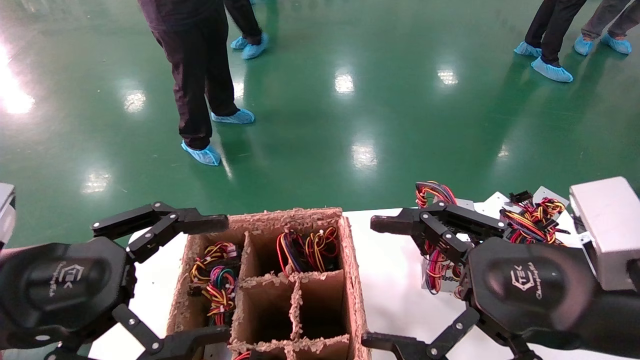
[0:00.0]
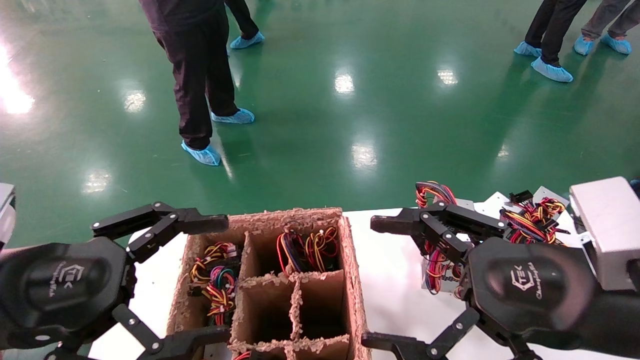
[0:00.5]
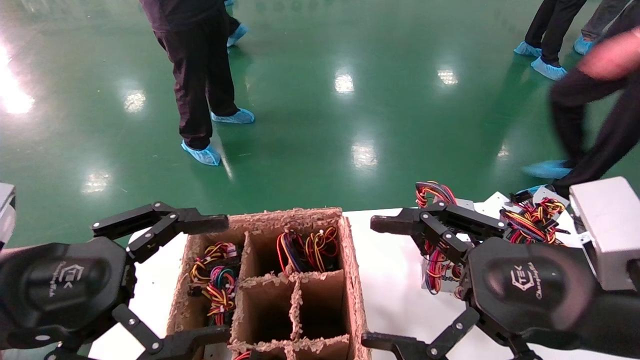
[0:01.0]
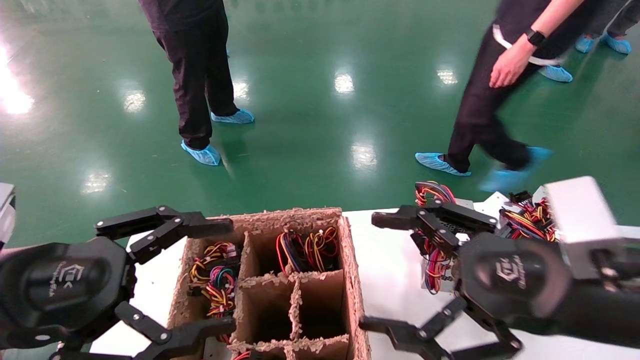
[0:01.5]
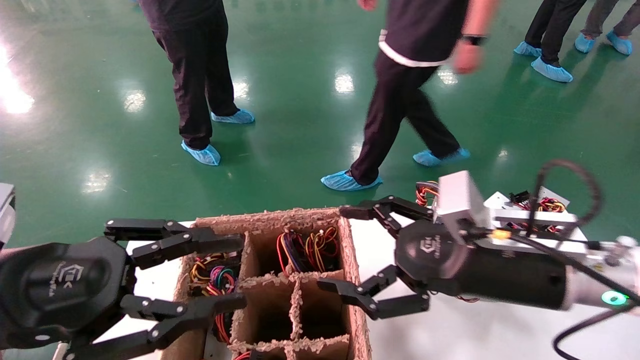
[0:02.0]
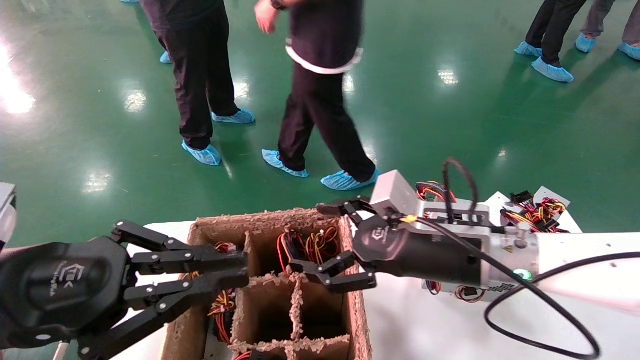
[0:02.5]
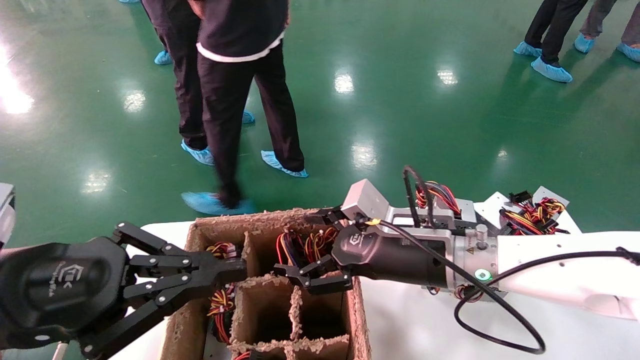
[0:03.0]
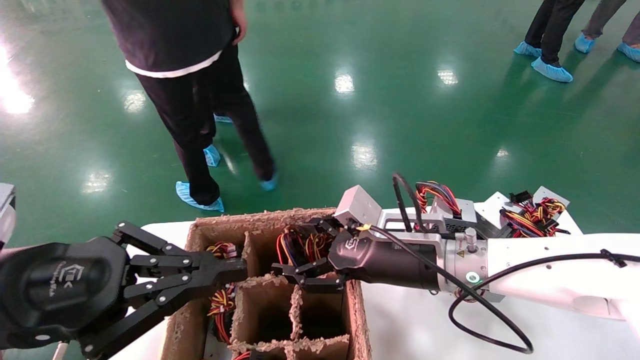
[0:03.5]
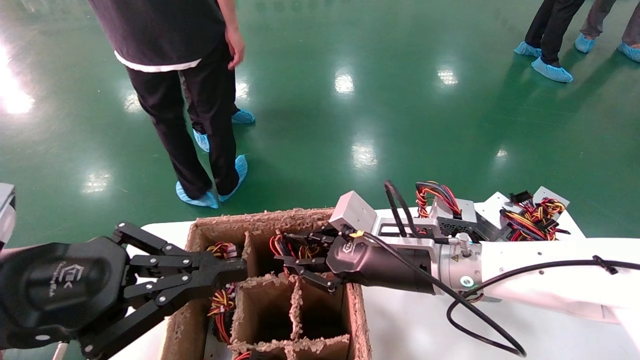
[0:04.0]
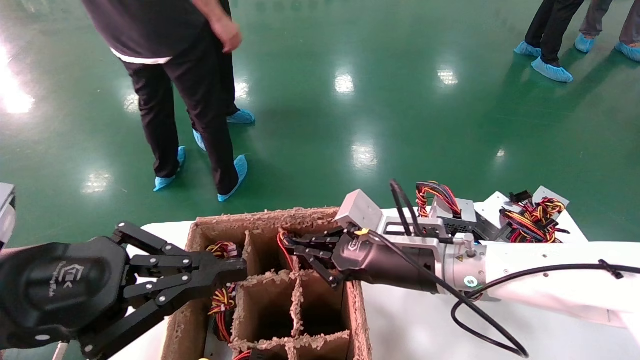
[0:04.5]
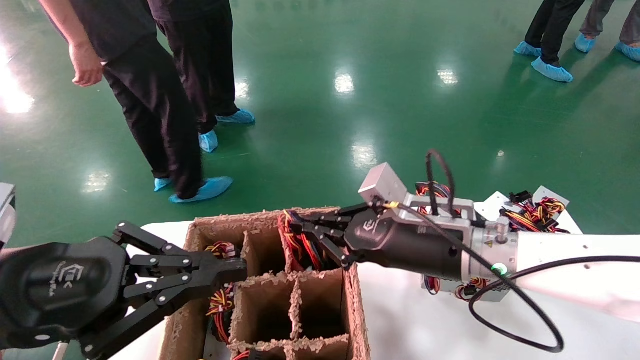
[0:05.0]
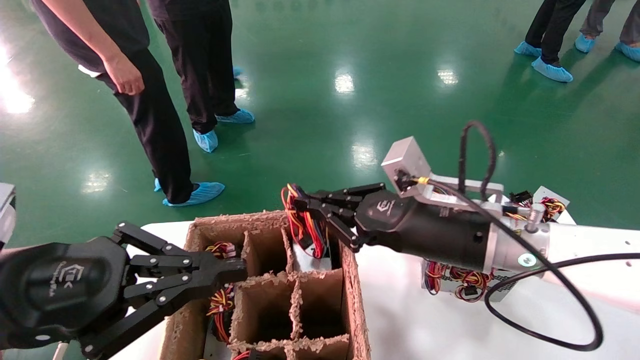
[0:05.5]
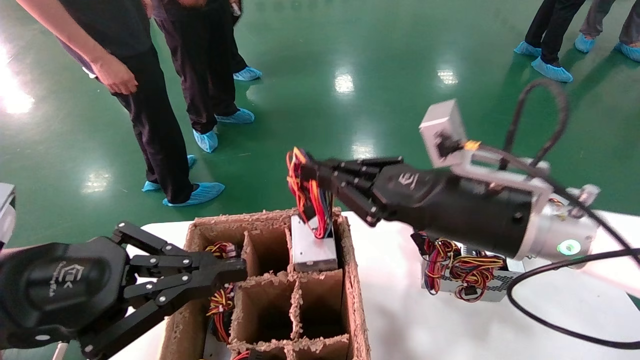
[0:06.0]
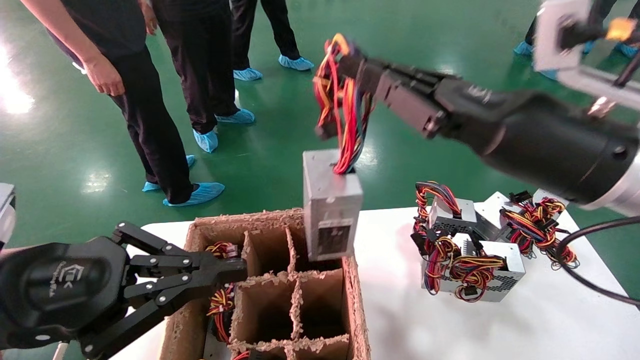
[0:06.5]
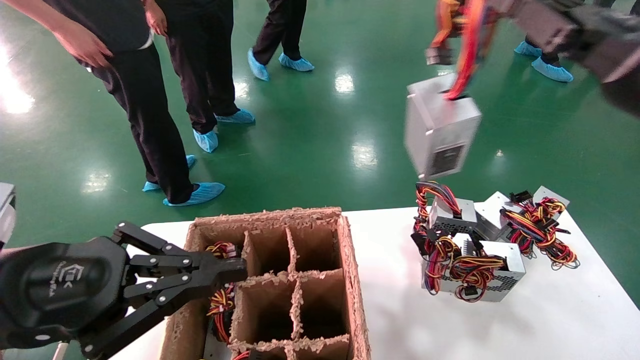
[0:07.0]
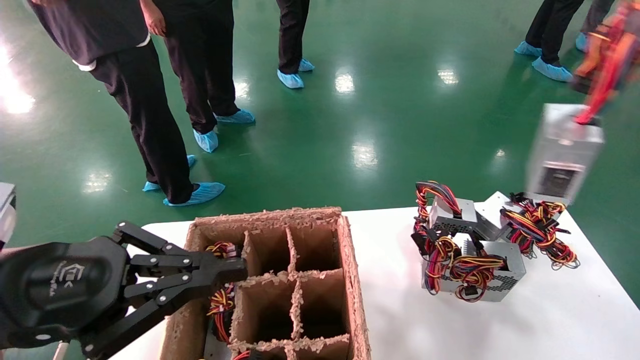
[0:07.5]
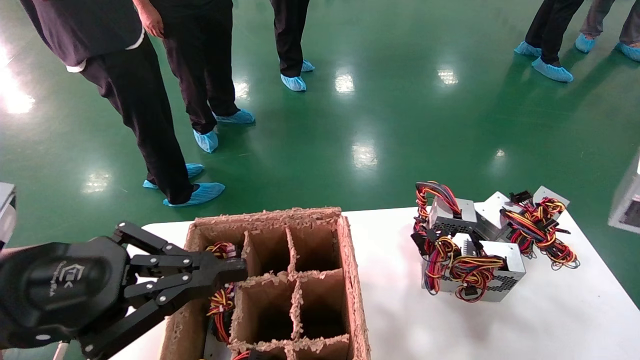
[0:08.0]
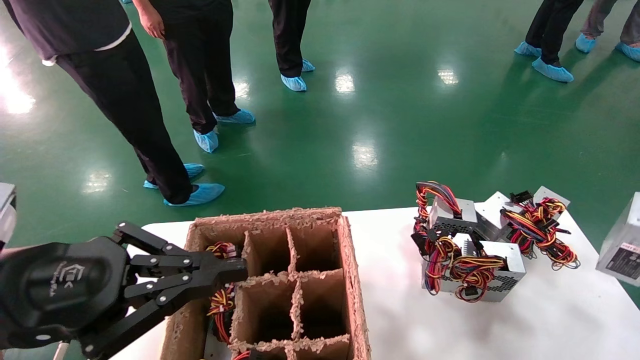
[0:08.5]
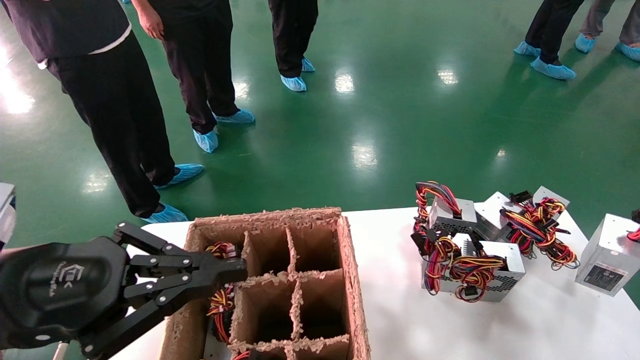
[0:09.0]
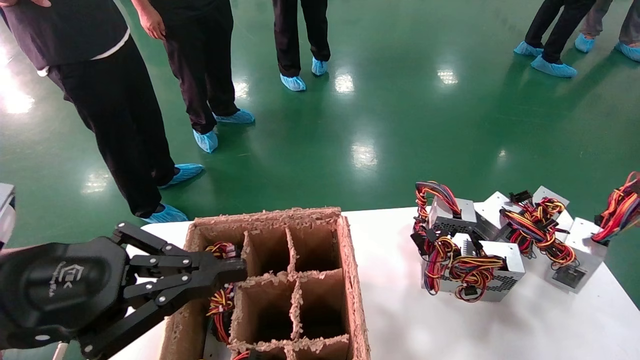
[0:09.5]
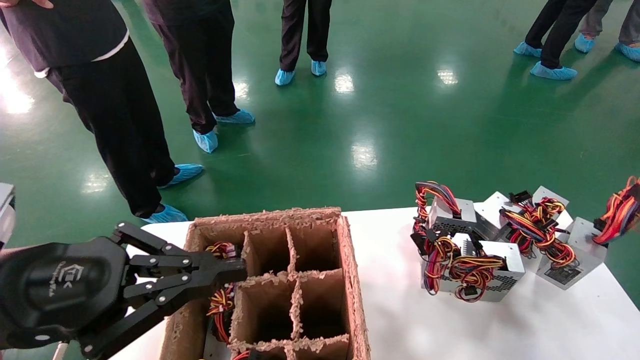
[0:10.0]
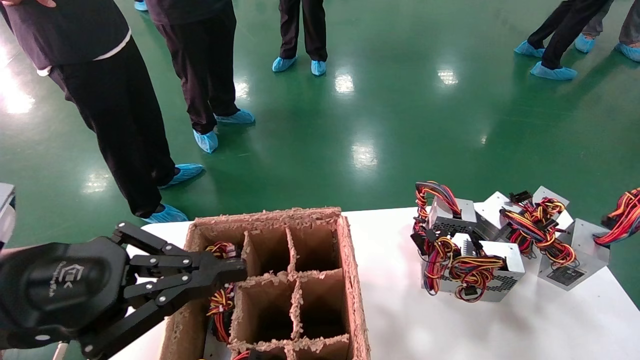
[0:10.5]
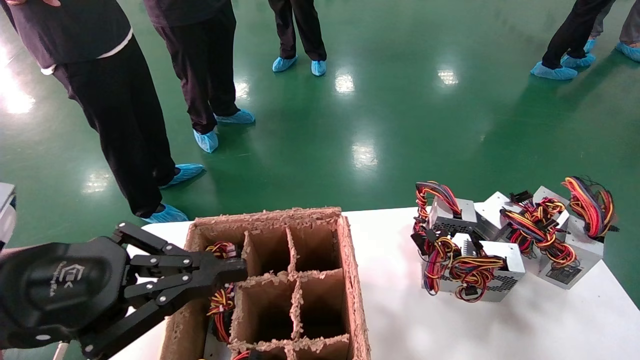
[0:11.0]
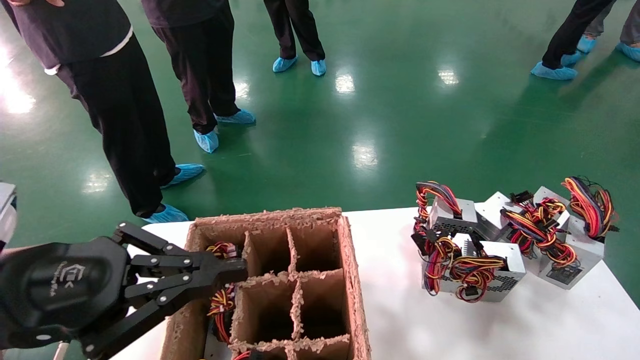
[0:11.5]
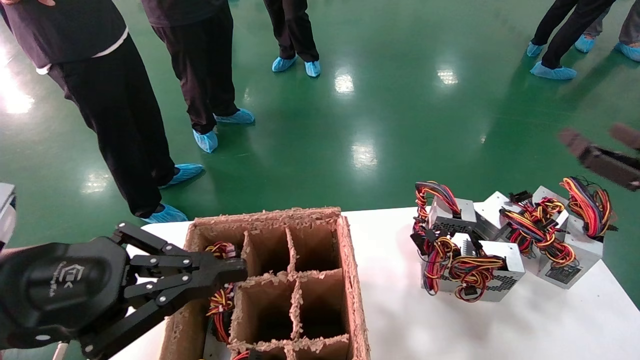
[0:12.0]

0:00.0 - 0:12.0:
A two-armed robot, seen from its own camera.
Step, 0:02.0 - 0:04.0: Grab the main unit power supply from the containment box.
Step, 0:04.5 - 0:10.5: Place the main unit power supply in the designated area.
0:00.0 - 0:02.0: The right gripper is displaced forward by about 10 cm. Meanwhile the left gripper closes.
0:02.0 - 0:04.0: The left gripper closes its fingers; the right gripper moves forward and to the left, roughly 10 cm, and closes up.
0:04.0 - 0:06.0: The right gripper shifts approximately 15 cm upward, backward and to the right, and closes its fingers.
0:06.0 - 0:08.0: The right gripper shifts approximately 35 cm to the right.
0:08.0 - 0:10.0: The right gripper goes approximately 15 cm downward and forward.
0:10.0 - 0:12.0: The right gripper goes roughly 15 cm to the left and upward, and opens up.

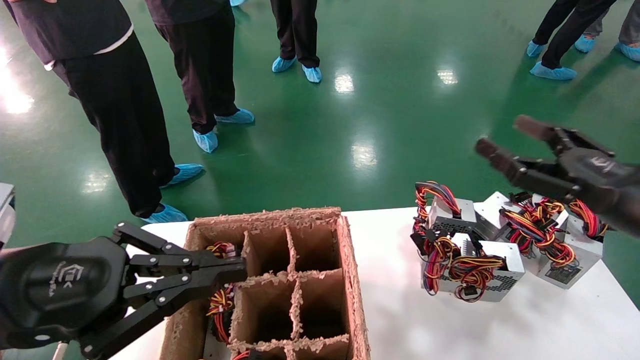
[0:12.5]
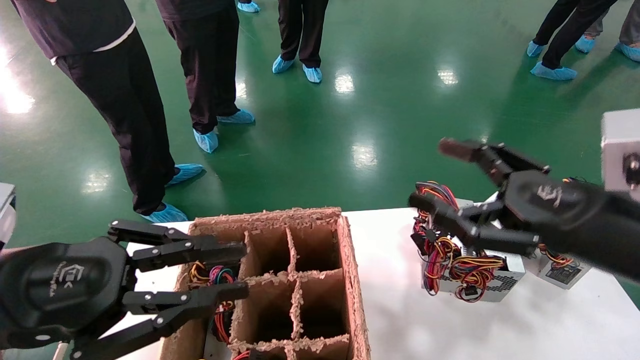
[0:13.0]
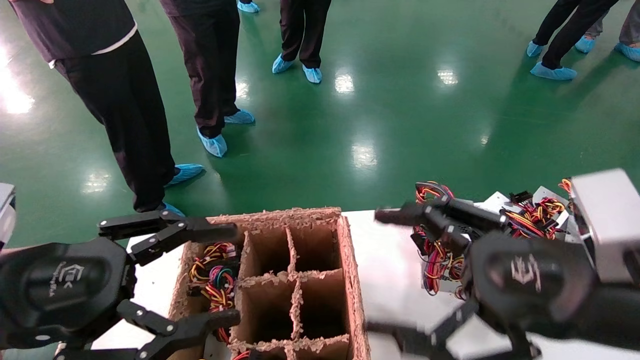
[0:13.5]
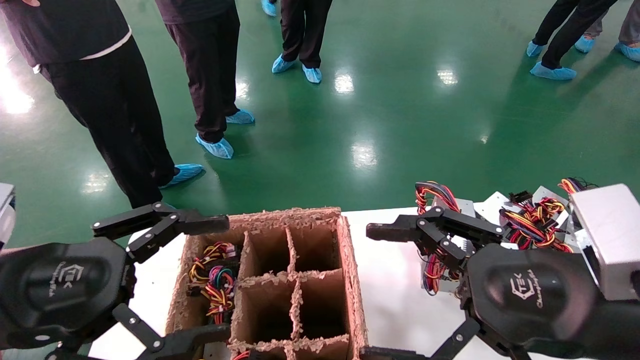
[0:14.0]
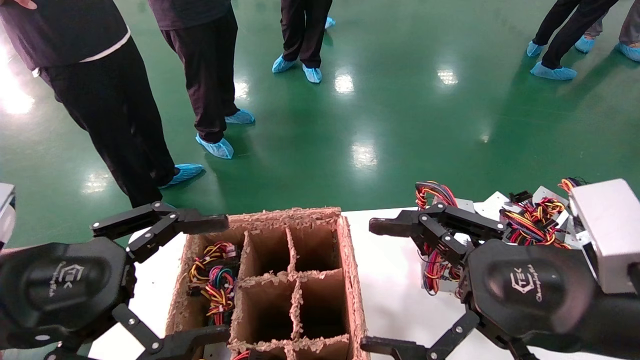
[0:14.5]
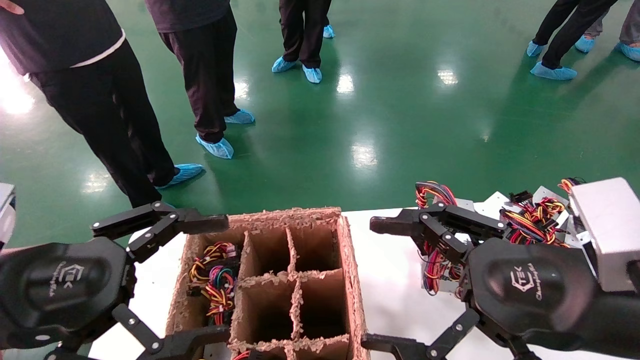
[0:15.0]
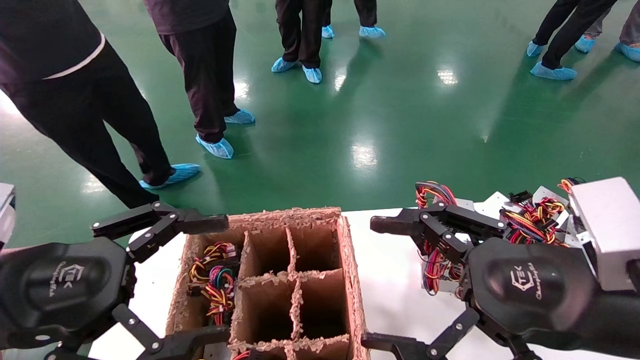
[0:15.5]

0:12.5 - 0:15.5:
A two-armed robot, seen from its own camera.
0:12.5 - 0:14.0: The left gripper opens; the right gripper heads to the left and backward, covering approximately 15 cm.
0:14.0 - 0:15.5: Both grippers stay put.

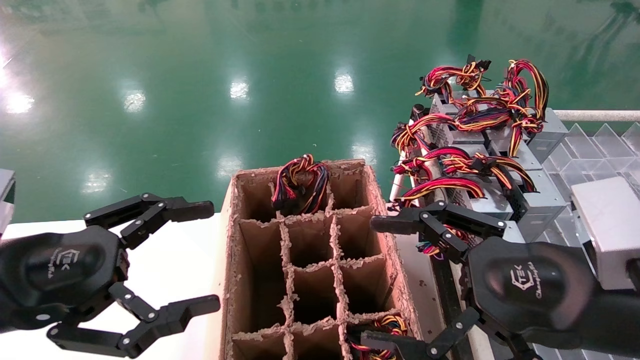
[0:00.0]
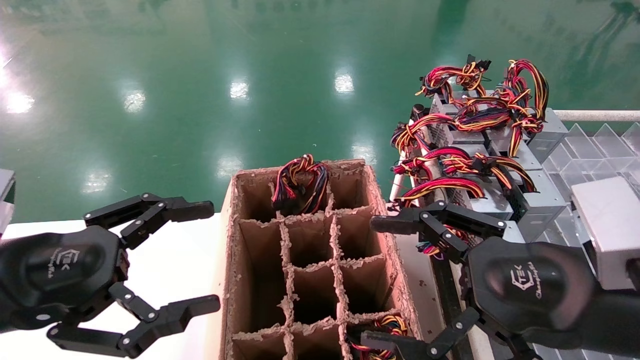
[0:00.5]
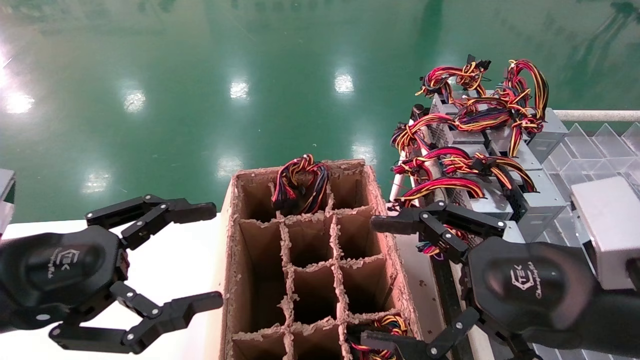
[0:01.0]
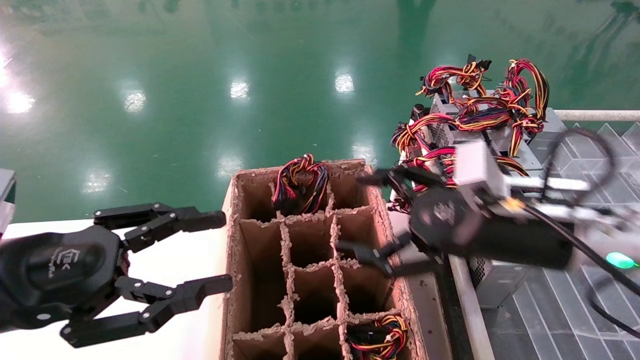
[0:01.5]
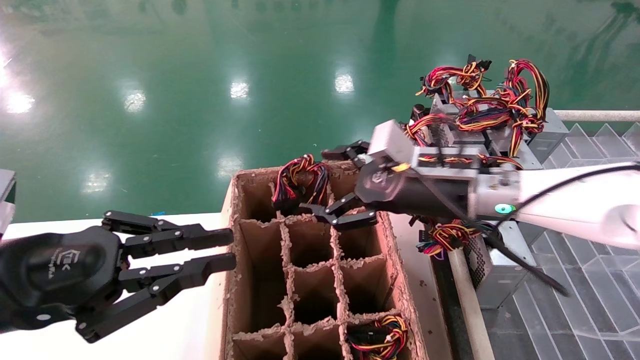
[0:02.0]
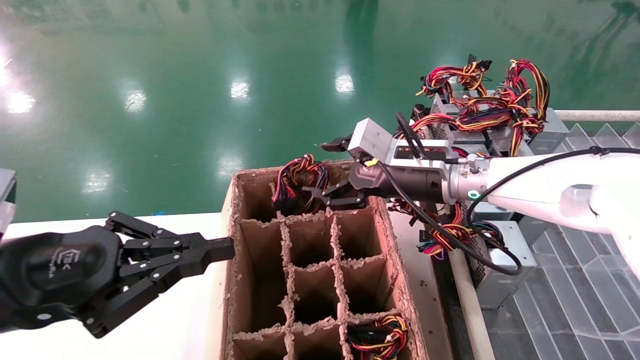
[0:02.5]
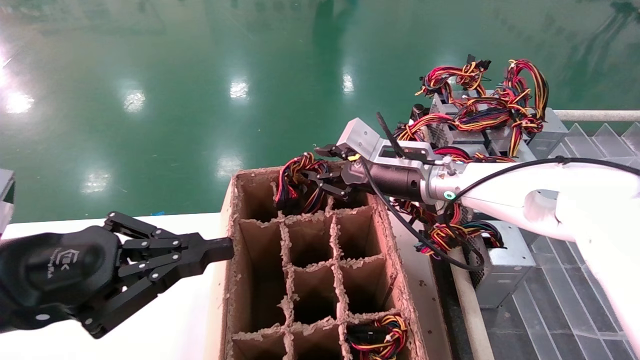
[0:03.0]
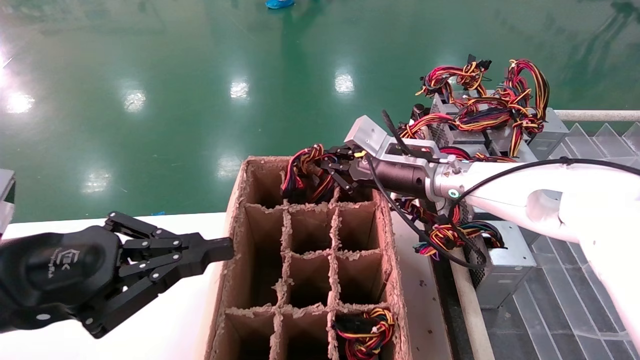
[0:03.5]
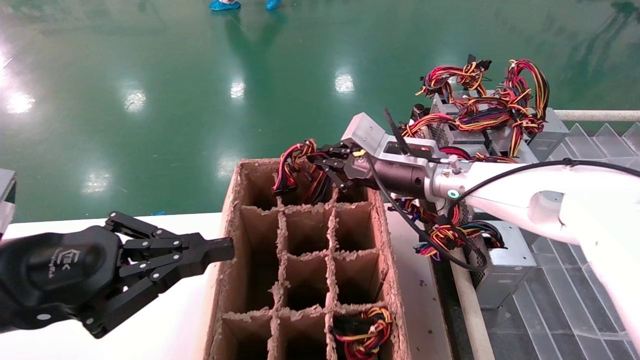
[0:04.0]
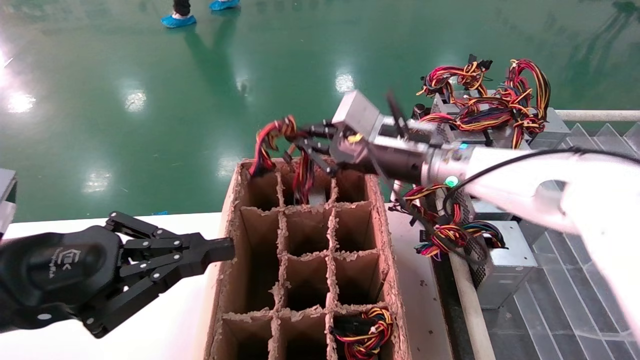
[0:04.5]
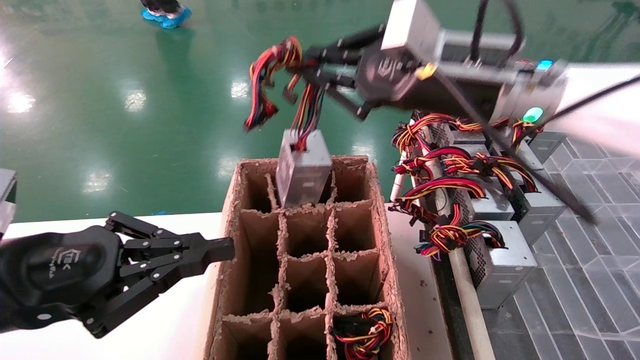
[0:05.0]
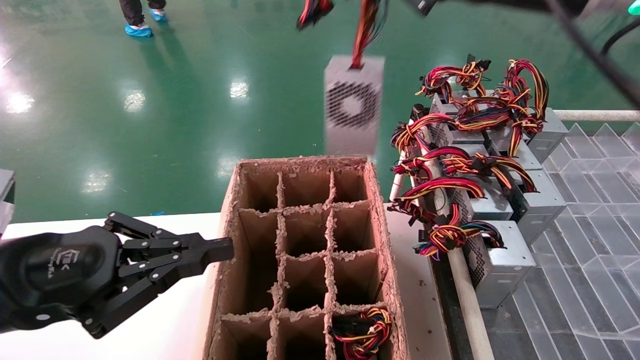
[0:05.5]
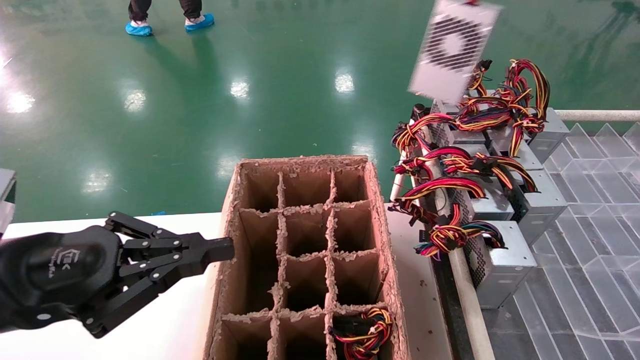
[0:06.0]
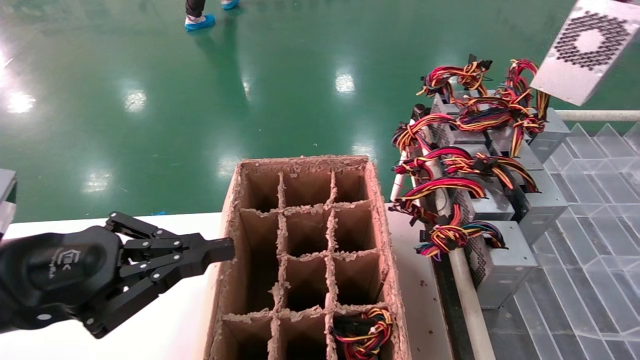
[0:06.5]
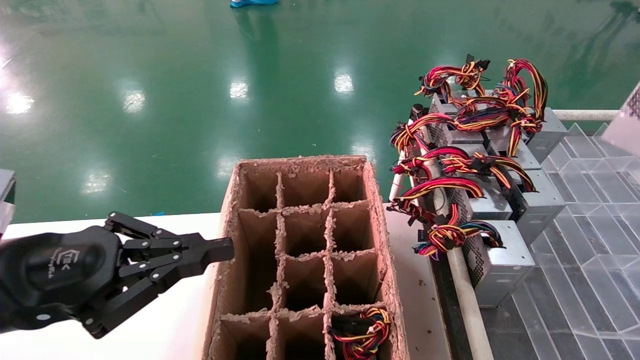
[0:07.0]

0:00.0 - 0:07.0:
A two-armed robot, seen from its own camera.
Step, 0:01.5 - 0:03.5: Grab the main unit power supply from the containment box.
0:00.0 - 0:02.0: The left gripper closes up. The right gripper travels forward by roughly 20 cm.
0:02.0 - 0:03.5: The right gripper is displaced forward by roughly 5 cm, and closes up.
0:03.5 - 0:05.0: The right gripper is displaced upward and backward by about 15 cm.
0:05.0 - 0:07.0: The right gripper shifts about 35 cm to the right.
